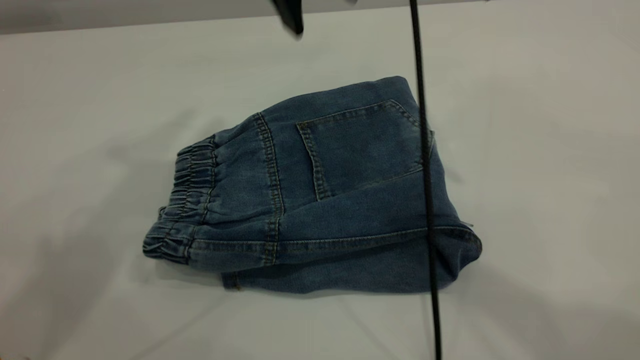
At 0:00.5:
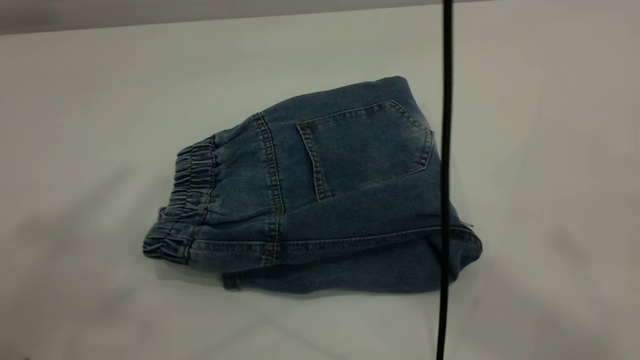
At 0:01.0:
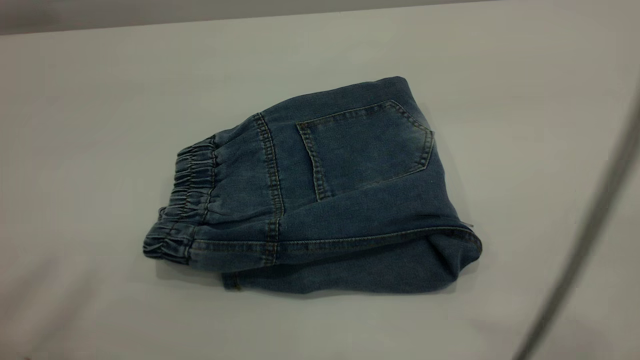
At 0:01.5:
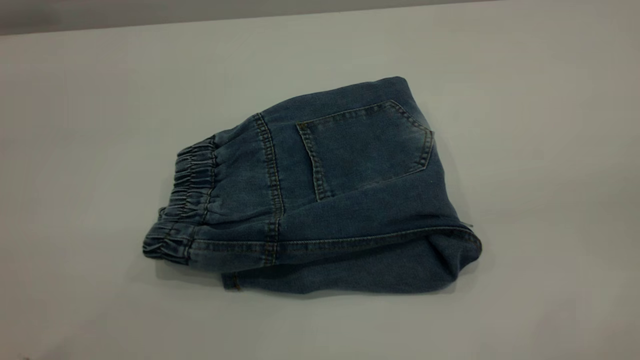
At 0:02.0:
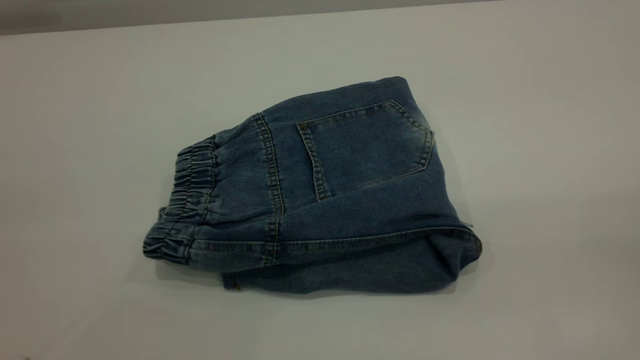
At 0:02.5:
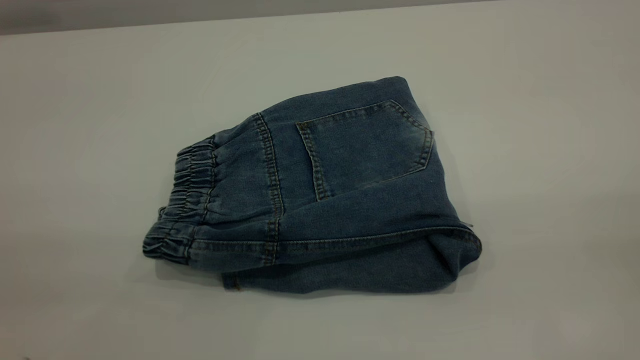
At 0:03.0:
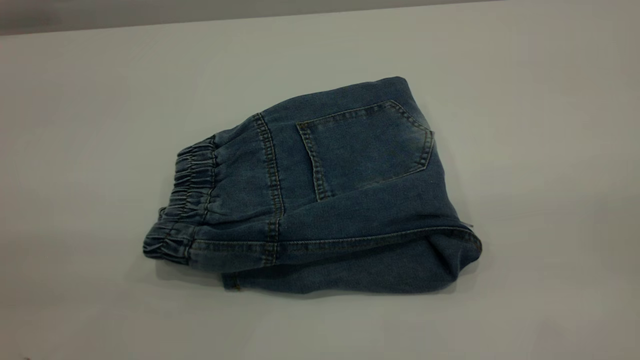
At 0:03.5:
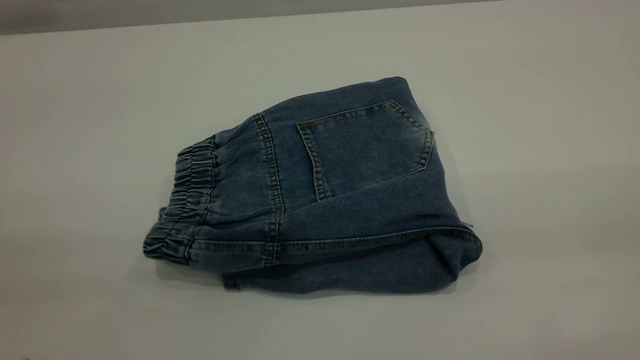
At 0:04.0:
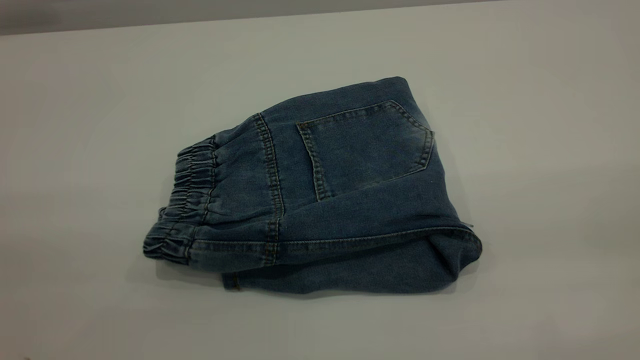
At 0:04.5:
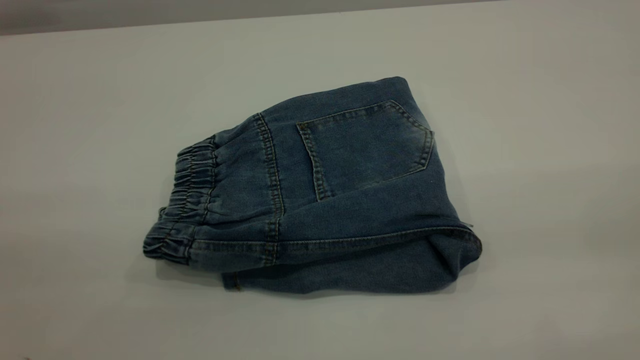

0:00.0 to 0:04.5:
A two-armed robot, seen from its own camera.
0:00.0 to 0:02.0: The left gripper goes approximately 25 cm backward. Meanwhile the right gripper goes roughly 50 cm backward and to the right.
